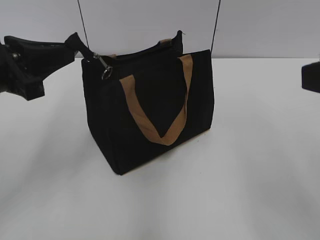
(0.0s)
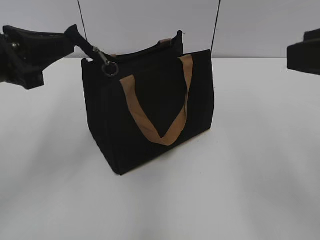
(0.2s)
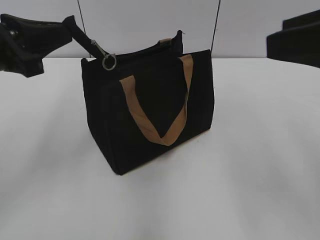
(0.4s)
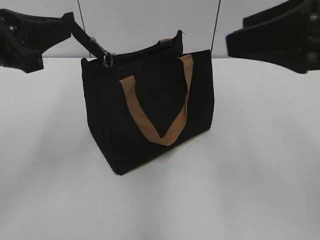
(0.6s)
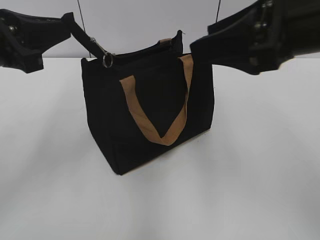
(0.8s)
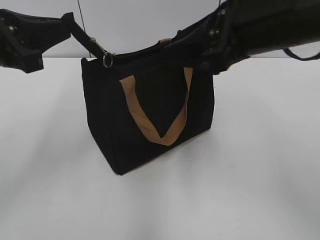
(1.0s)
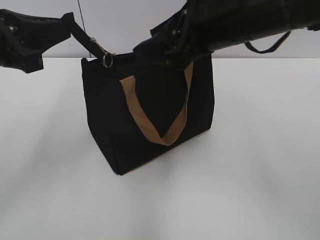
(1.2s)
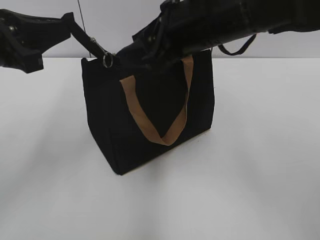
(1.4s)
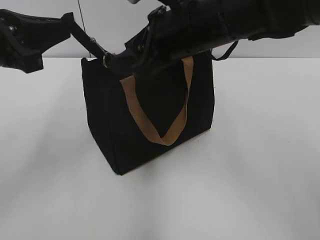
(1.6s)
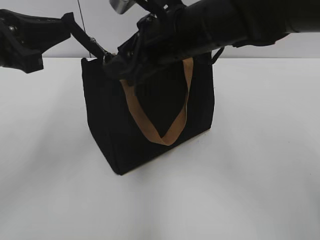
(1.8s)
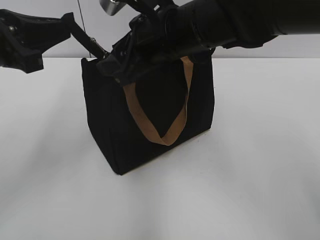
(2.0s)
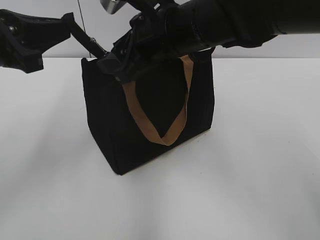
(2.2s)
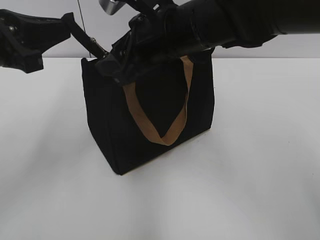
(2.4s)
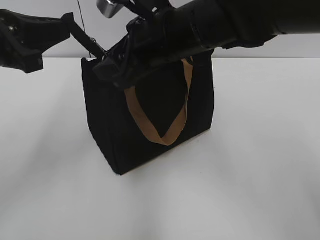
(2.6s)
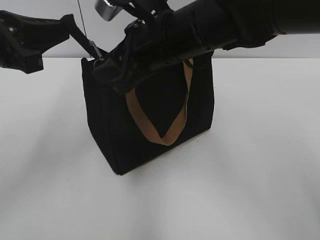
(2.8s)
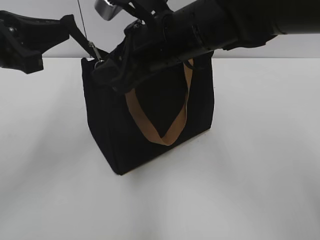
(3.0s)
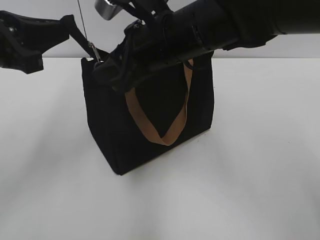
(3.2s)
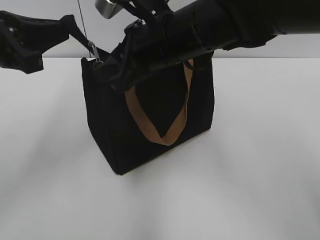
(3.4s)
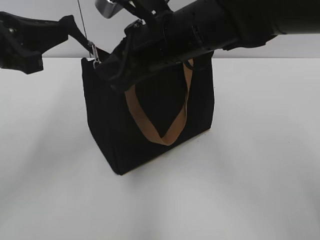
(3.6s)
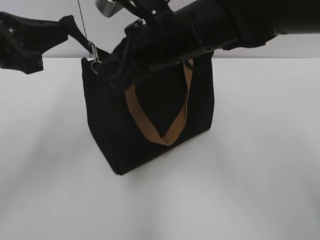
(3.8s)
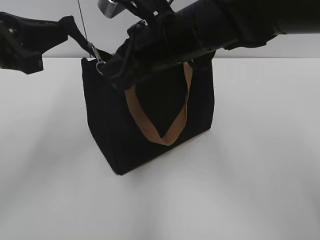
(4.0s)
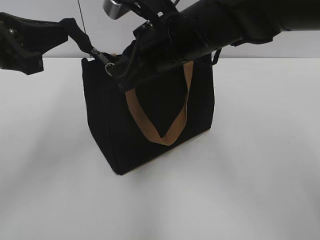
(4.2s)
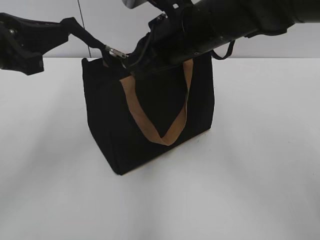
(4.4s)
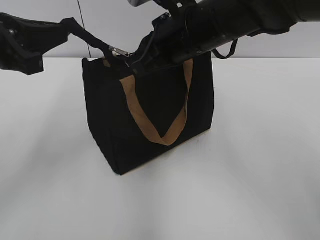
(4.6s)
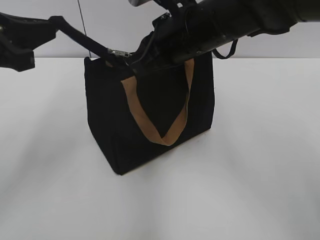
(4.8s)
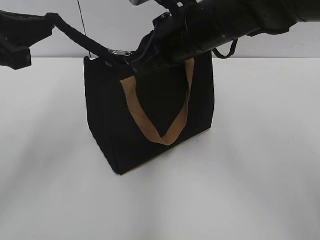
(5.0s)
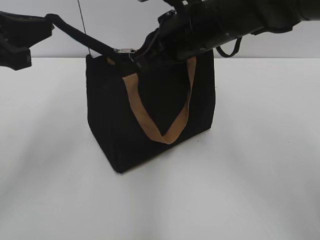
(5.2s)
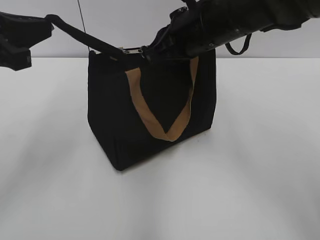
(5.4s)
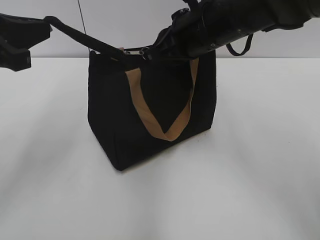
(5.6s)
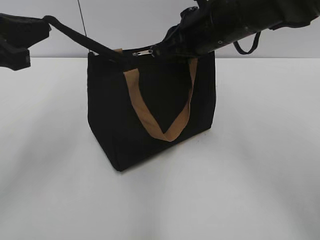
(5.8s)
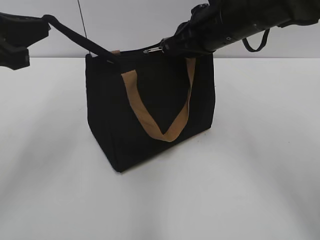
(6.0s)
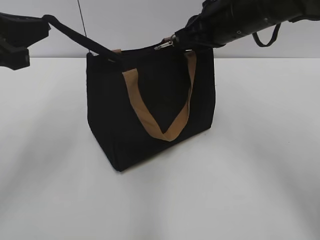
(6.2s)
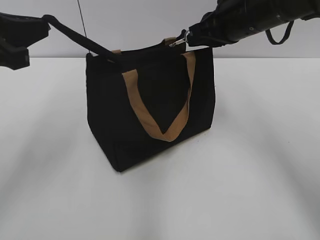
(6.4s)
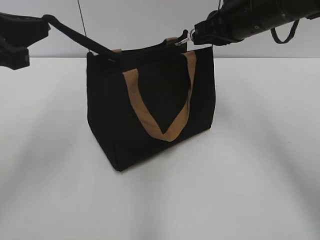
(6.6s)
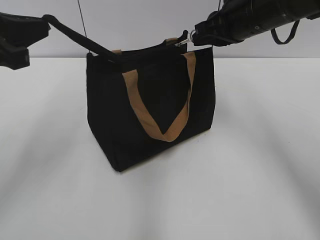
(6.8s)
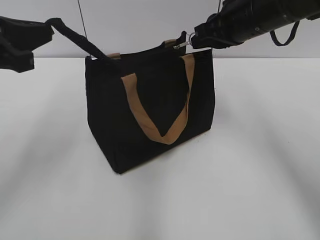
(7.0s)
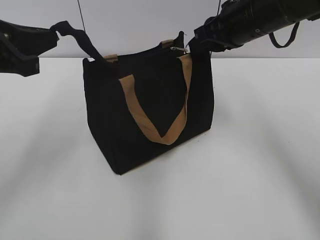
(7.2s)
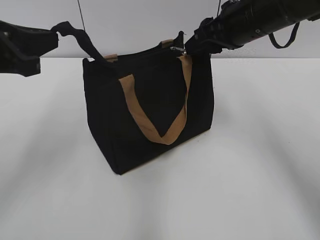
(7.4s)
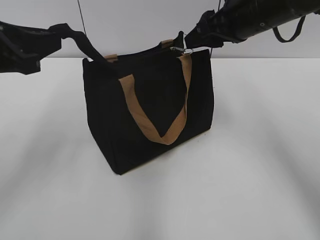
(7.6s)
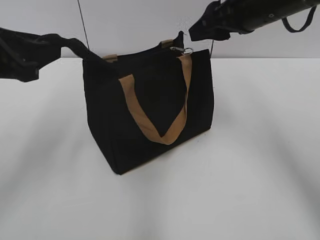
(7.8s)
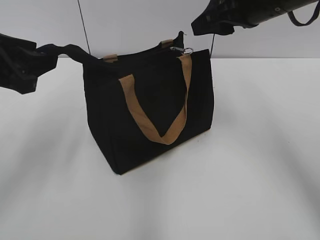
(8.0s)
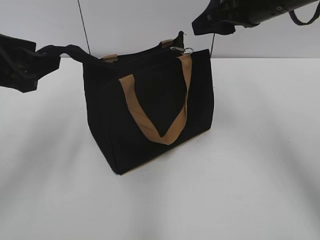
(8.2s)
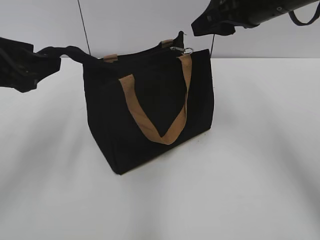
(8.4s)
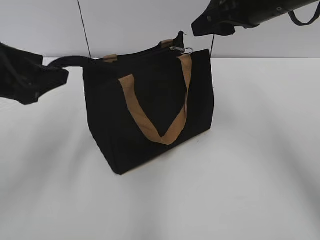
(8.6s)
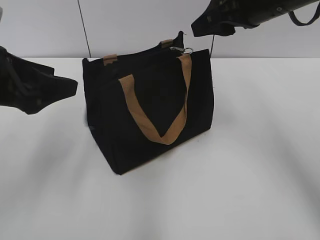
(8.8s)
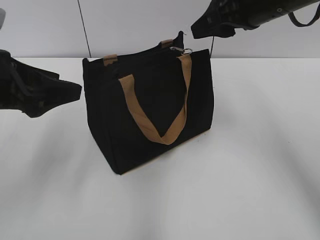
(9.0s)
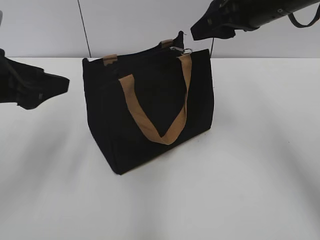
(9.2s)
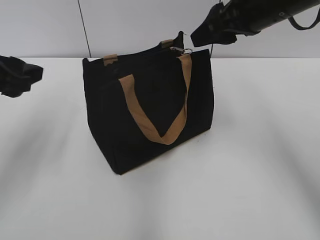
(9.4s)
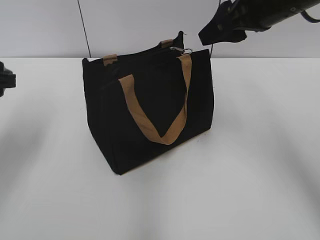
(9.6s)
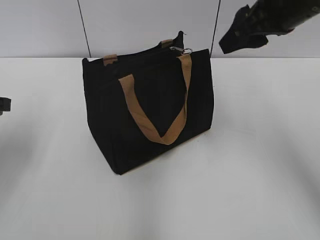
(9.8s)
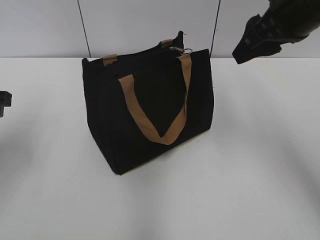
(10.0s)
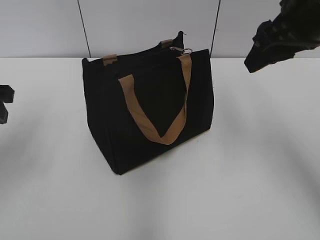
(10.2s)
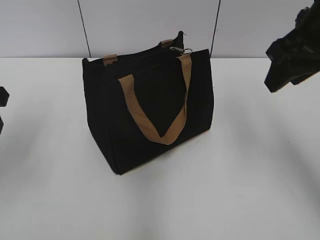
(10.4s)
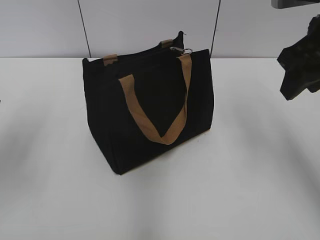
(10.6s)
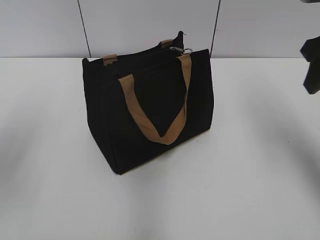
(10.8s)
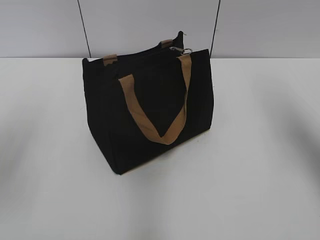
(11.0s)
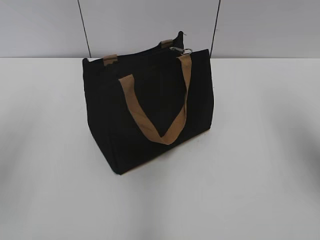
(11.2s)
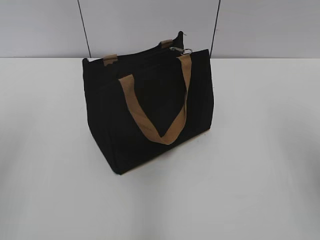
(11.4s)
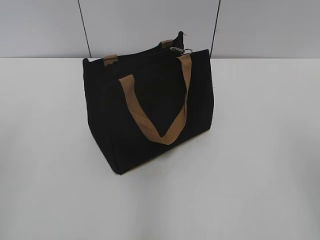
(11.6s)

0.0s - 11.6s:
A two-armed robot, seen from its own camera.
Step, 0.0s - 8.0s: Zip up the bag with your right hand.
Step, 8.2s - 8.6s: Grab the zipper with your left hand.
0.0s - 1.4s: The right gripper goes roughly 25 cm forward and to the left.
1.4s - 2.8s: The right gripper shifts by some 5 cm.
2.8s - 4.4s: The right gripper closes its fingers.
4.4s - 5.8s: The grippers stay close to where they were, moving slightly.
5.8s - 7.2s: The right gripper travels to the right by some 5 cm.
7.2s - 8.8s: The right gripper opens its fingers, while the left gripper opens its fingers.
8.8s - 10.2s: The right gripper ends up approximately 5 cm from where it was. Meanwhile the left gripper changes place by approximately 5 cm.
10.2s - 11.6s: The left gripper goes approximately 15 cm backward and upward; the right gripper moves backward and to the right, some 20 cm.
